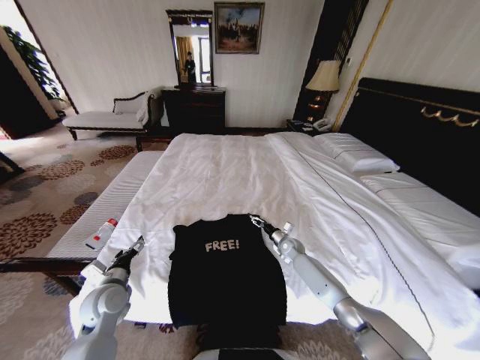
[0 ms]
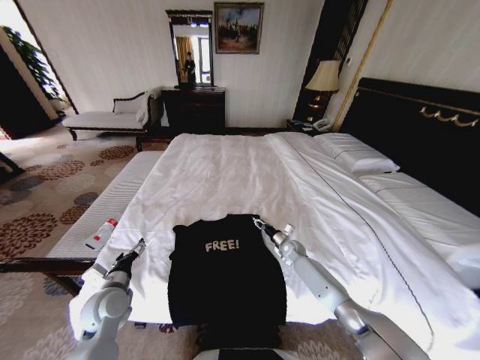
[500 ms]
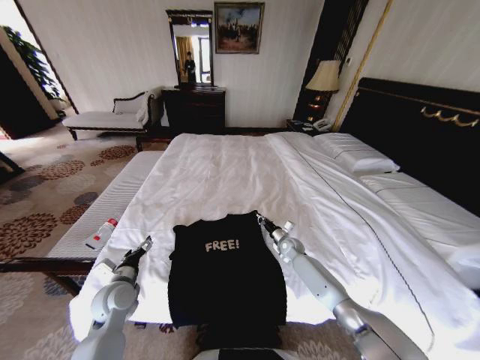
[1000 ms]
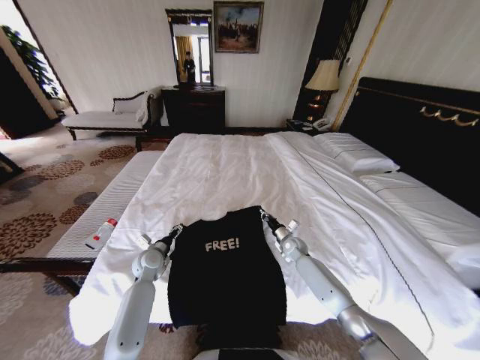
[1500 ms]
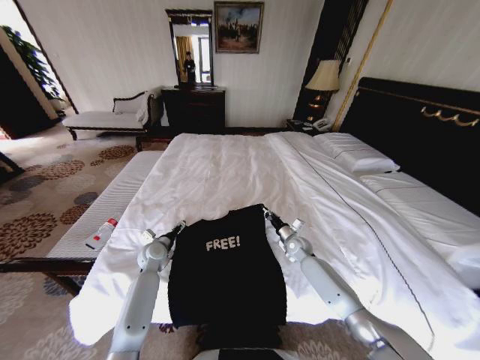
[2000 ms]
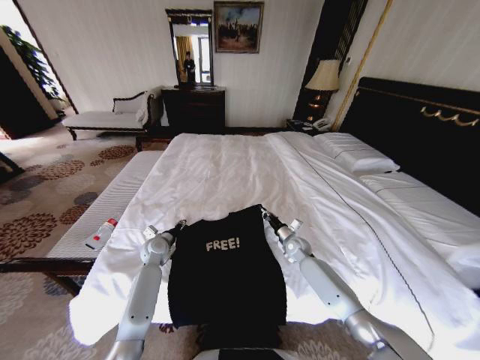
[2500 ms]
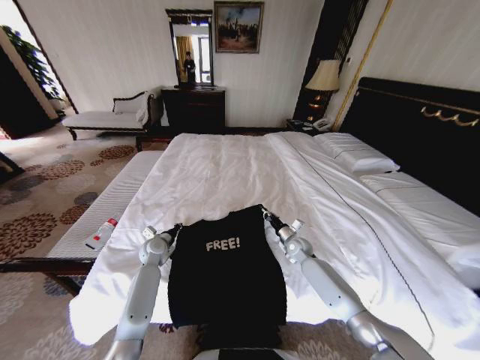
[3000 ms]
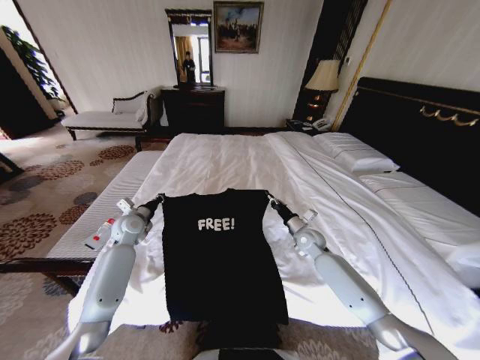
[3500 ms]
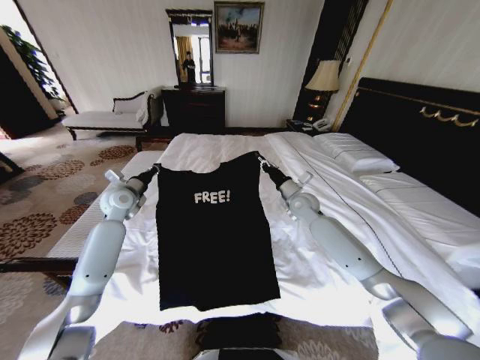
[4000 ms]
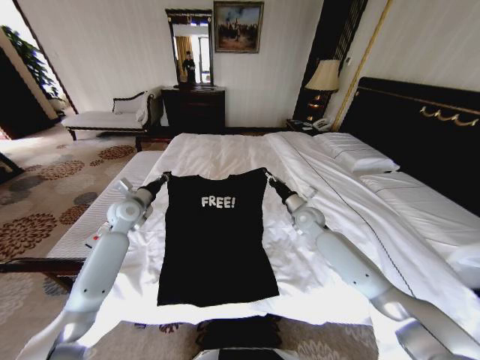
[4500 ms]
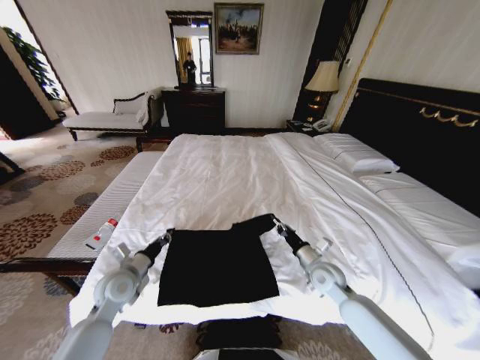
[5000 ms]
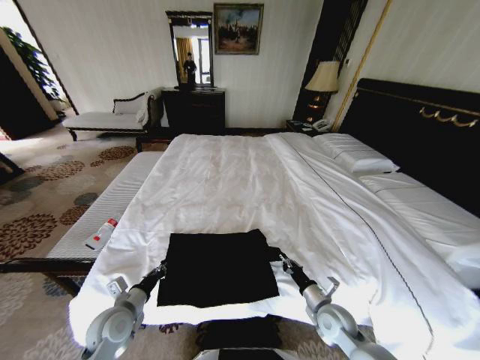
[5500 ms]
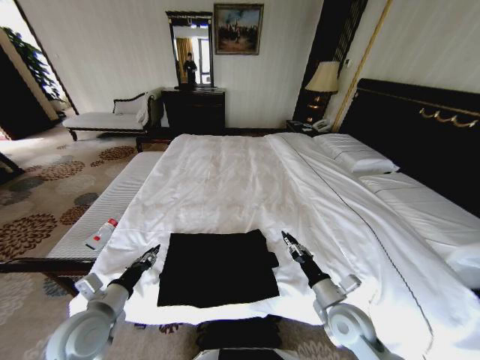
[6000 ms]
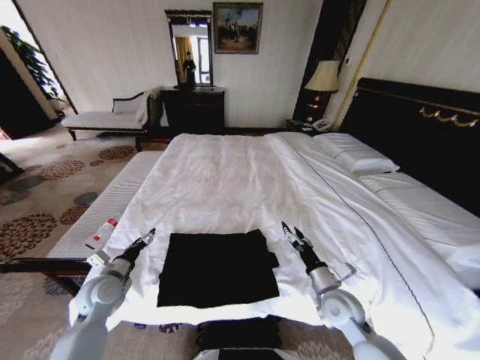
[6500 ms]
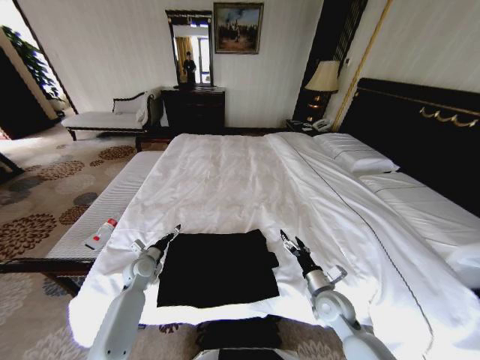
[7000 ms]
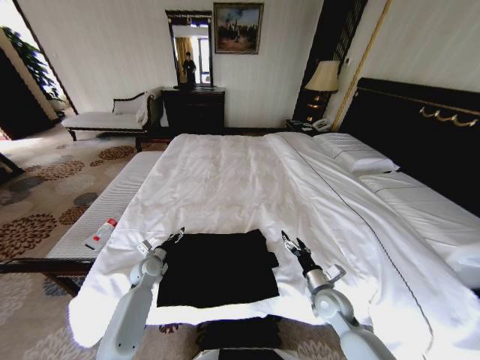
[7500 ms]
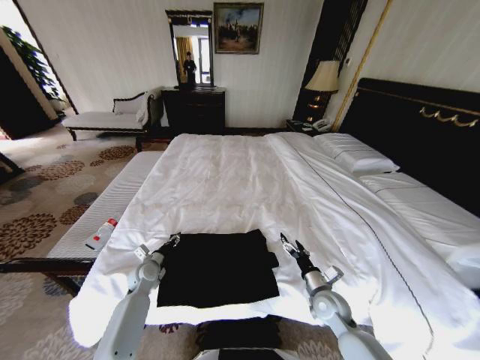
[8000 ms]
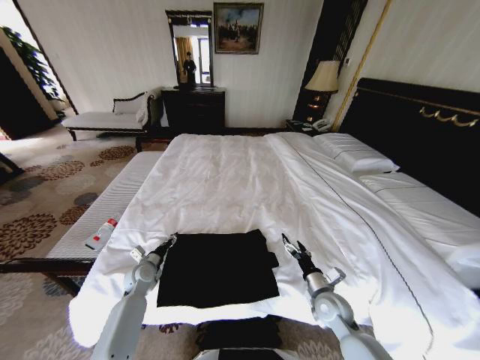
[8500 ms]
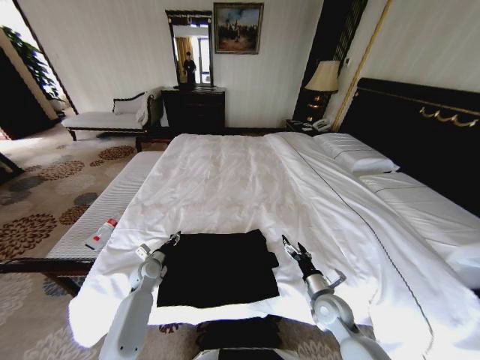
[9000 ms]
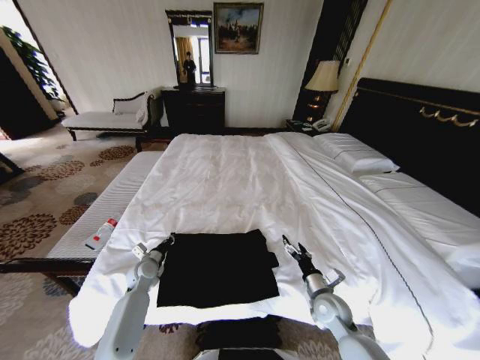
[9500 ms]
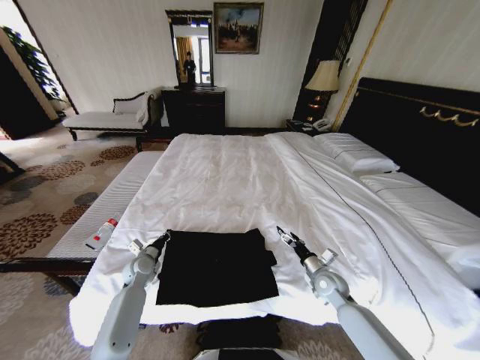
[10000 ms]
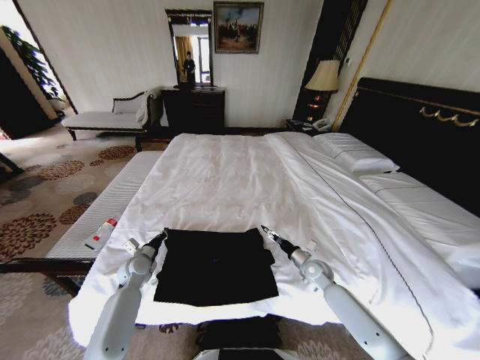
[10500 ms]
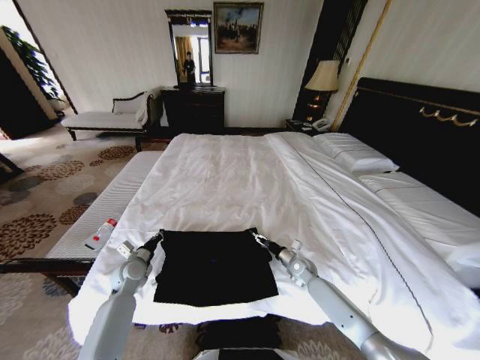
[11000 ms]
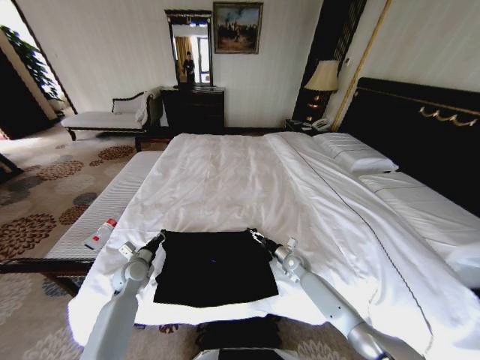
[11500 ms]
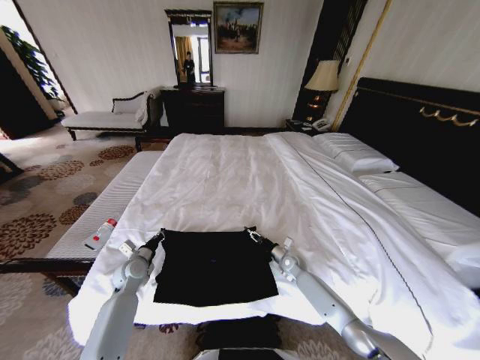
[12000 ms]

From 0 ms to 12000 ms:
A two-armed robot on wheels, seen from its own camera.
Task of the whole recording: Fold the clothes on the bed.
From 0 ms to 2000 ms: The left gripper moves forward, some 15 cm; the right gripper closes.
From 2000 ms to 4000 ms: The two grippers go some 20 cm upward. The left gripper closes up.
From 4000 ms to 6000 ms: Both grippers travel together backward, about 30 cm.
From 6000 ms to 8000 ms: The right gripper is displaced downward and forward by some 10 cm, and opens up, while the left gripper is displaced forward and downward by some 25 cm, and opens and closes again.
From 8000 ms to 10000 ms: The right gripper goes some 5 cm forward. Meanwhile the left gripper closes.
From 10000 ms to 12000 ms: The right gripper shifts about 15 cm forward, downward and to the left, and closes.

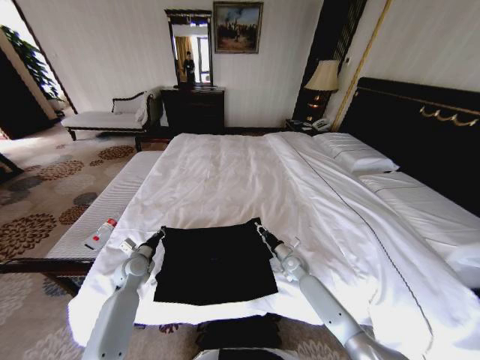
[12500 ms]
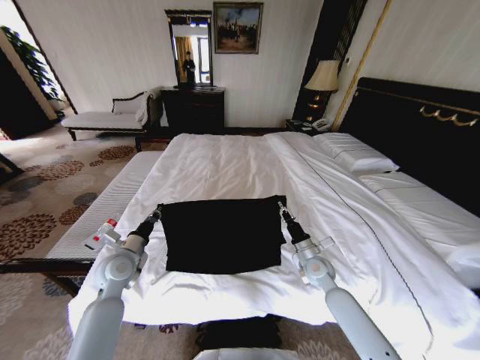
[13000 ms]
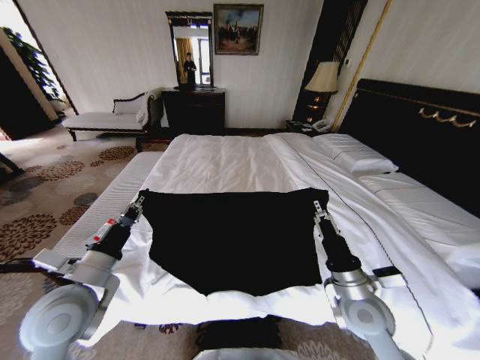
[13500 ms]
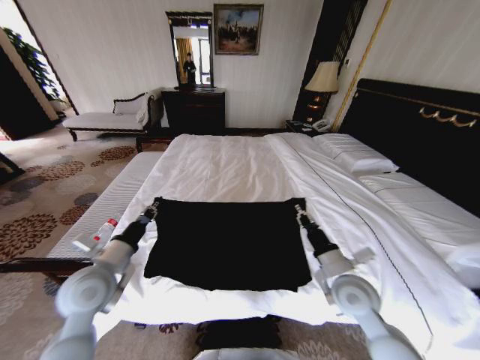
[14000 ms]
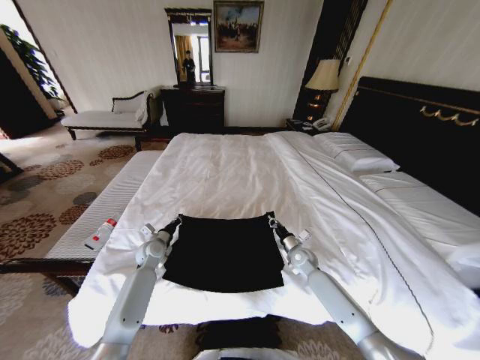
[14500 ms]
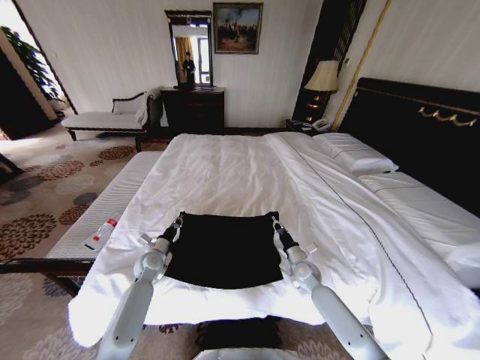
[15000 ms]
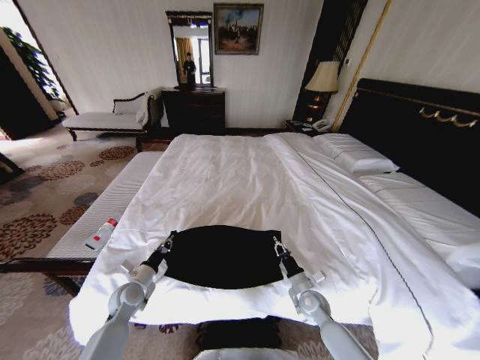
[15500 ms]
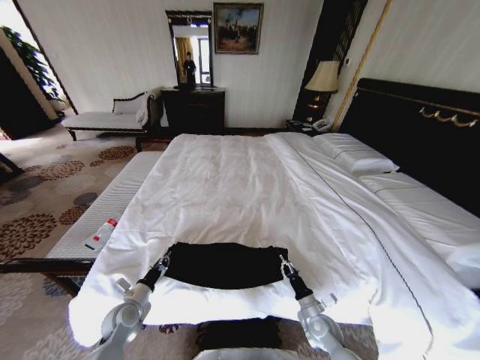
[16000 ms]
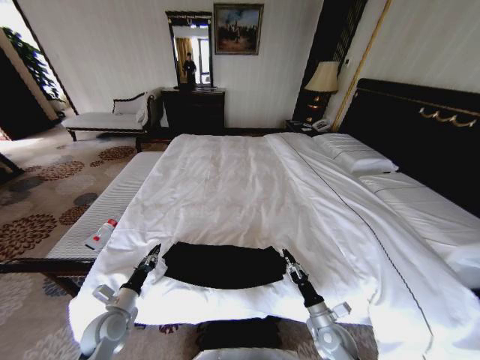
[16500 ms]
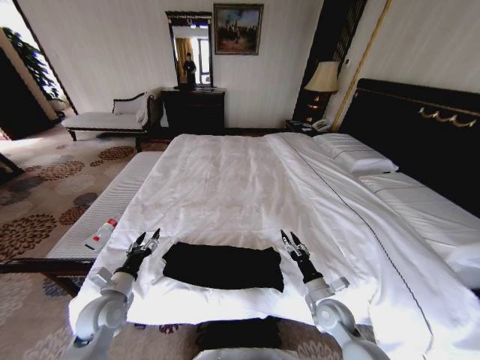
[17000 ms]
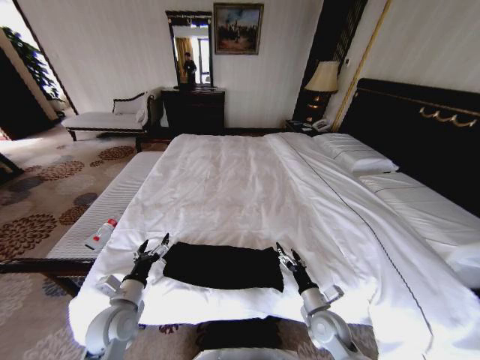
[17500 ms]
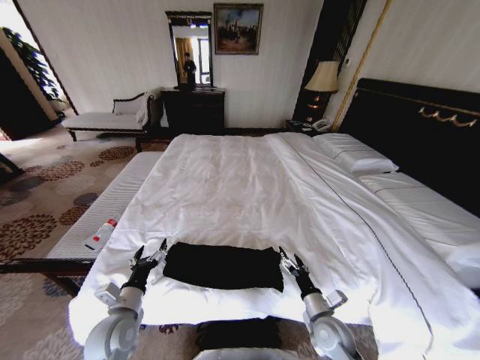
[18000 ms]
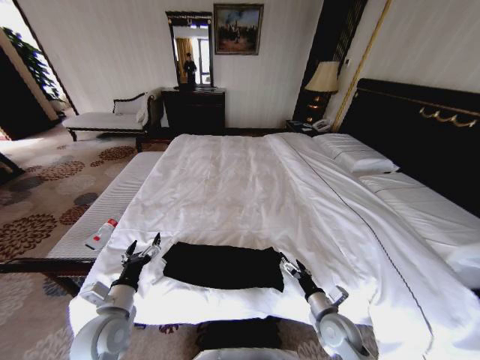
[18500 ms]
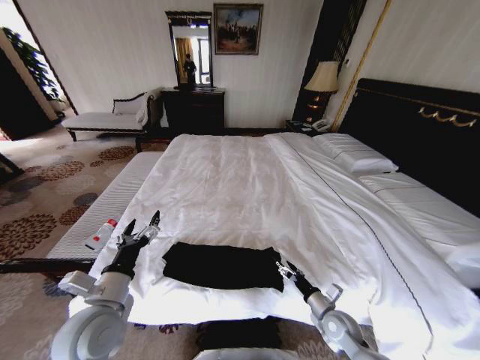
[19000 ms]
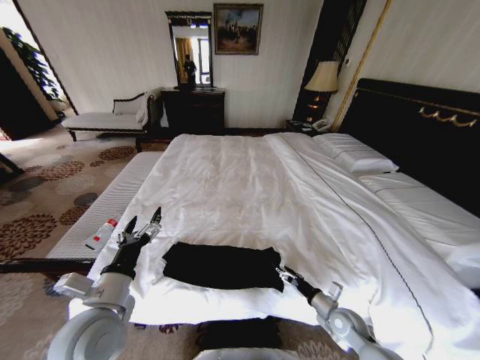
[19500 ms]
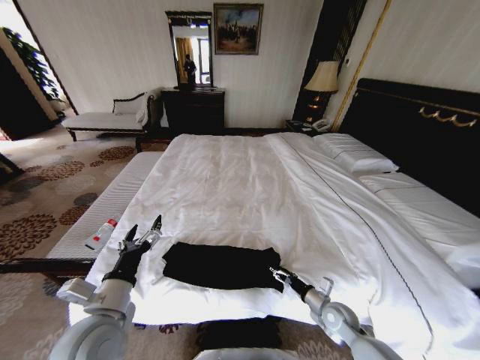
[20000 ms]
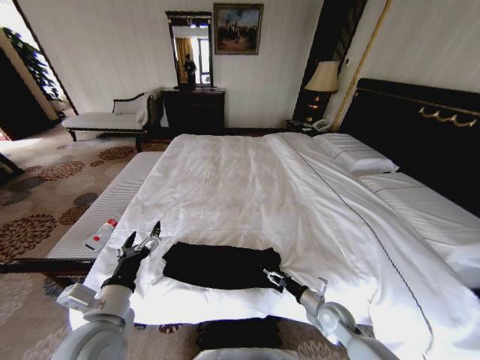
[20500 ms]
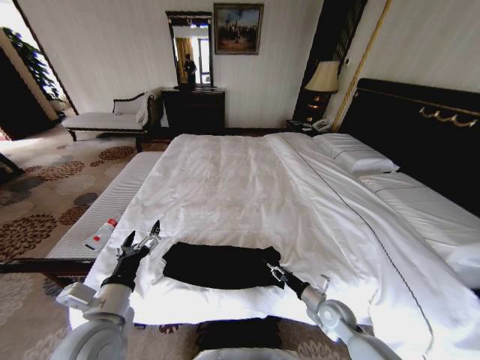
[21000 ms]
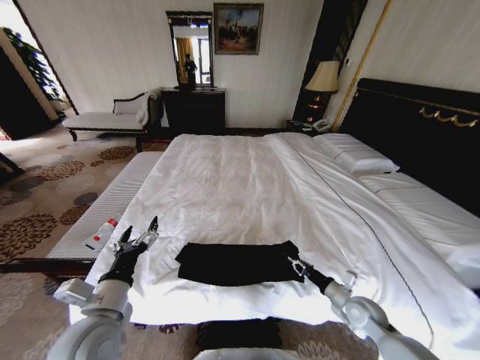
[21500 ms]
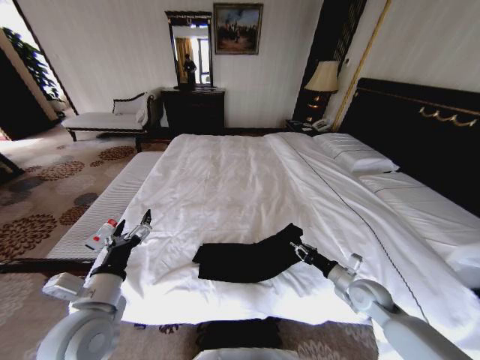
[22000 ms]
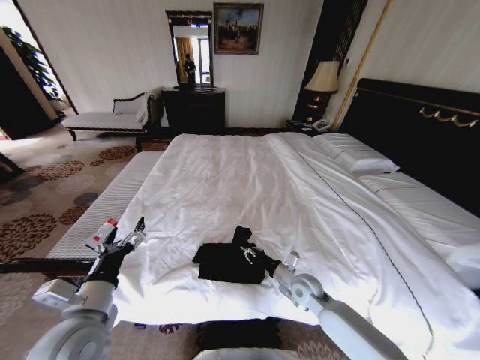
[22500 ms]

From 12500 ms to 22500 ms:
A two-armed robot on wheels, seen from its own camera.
Task of the whole recording: Fold the clothes on the bed.
From 12500 ms to 14500 ms: The left gripper moves about 15 cm backward and comes back. The right gripper moves about 20 cm upward and comes back.
From 14500 ms to 16500 ms: The grippers both shift backward by approximately 25 cm.
From 16500 ms to 18500 ms: The left gripper is displaced upward and to the right by roughly 10 cm, and opens its fingers. Meanwhile the right gripper goes approximately 5 cm upward, and opens its fingers.
From 18500 ms to 20500 ms: The left gripper moves upward, roughly 5 cm, while the right gripper shifts by some 5 cm.
From 20500 ms to 22500 ms: The right gripper goes some 10 cm to the left, forward and upward, and closes.

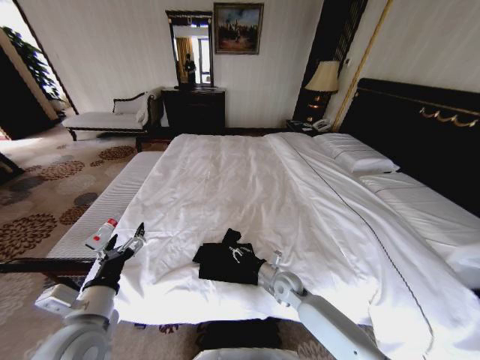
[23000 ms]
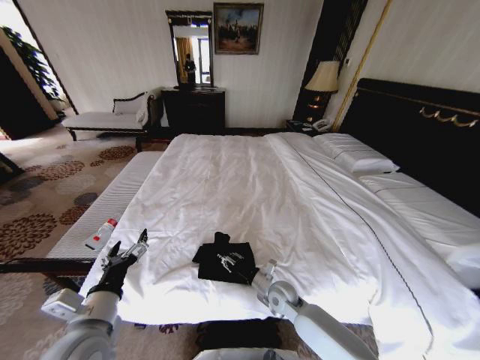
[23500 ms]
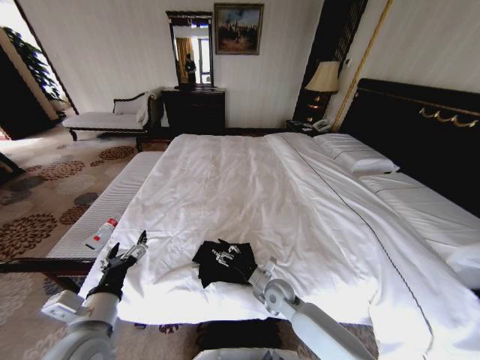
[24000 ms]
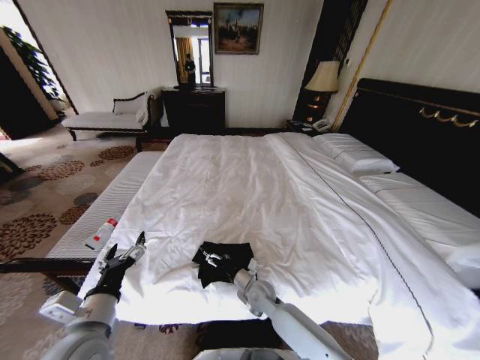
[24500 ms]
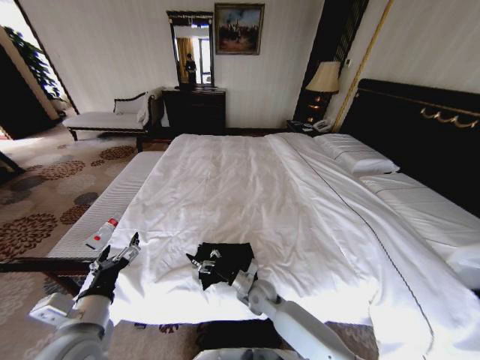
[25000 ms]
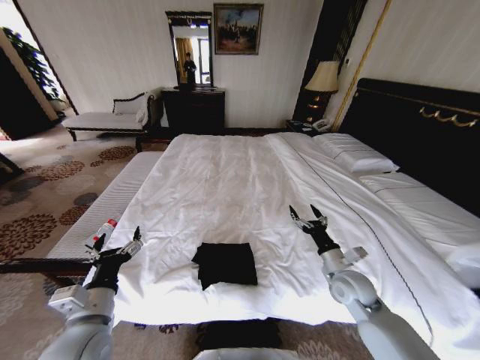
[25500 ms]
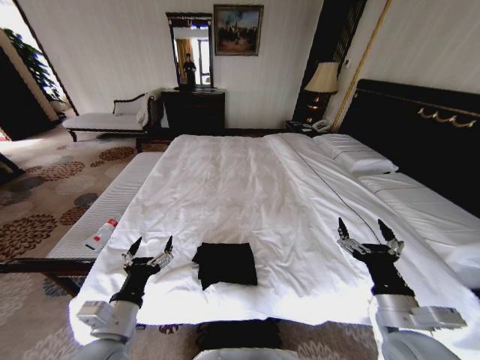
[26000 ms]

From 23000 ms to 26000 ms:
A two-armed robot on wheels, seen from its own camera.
Task of the whole recording: Fold the clothes on the bed.
From 23000 ms to 24500 ms: The right gripper is displaced to the left by about 10 cm, and opens.
From 24500 ms to 26000 ms: The right gripper heads to the right, upward and backward, covering roughly 35 cm.
